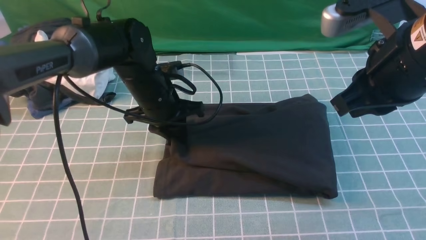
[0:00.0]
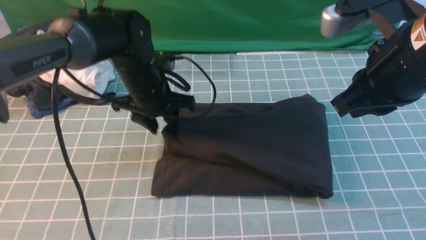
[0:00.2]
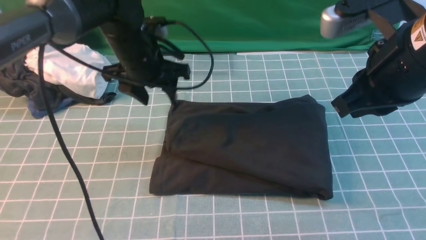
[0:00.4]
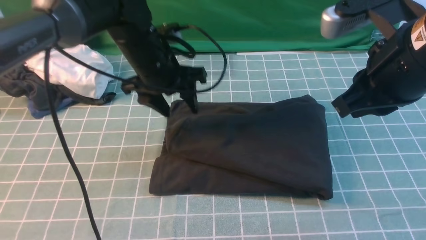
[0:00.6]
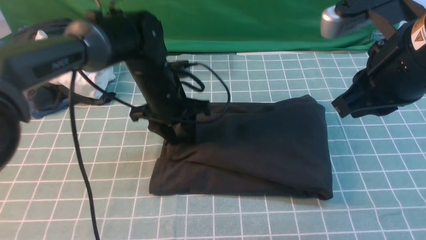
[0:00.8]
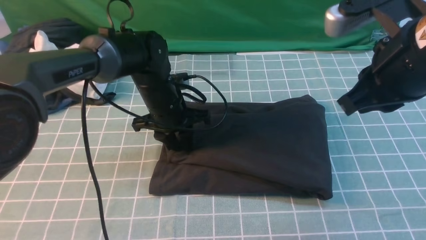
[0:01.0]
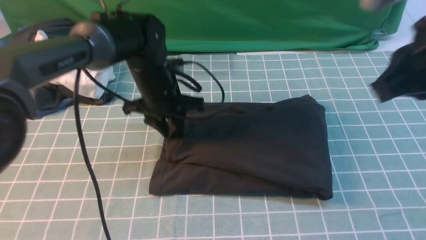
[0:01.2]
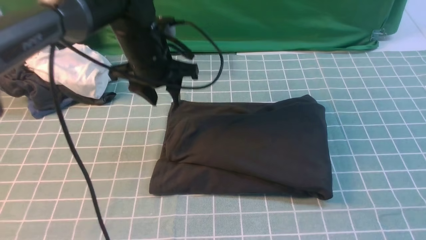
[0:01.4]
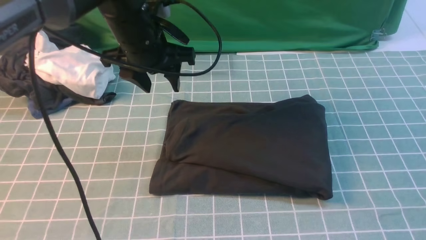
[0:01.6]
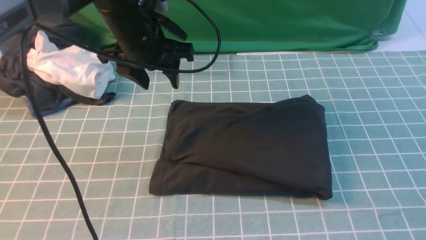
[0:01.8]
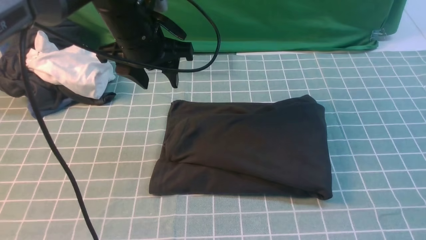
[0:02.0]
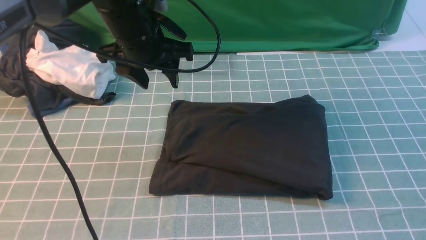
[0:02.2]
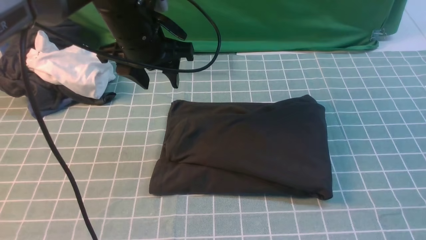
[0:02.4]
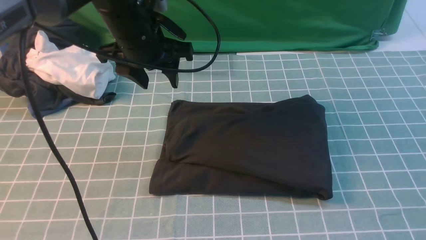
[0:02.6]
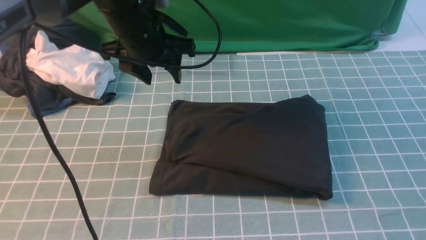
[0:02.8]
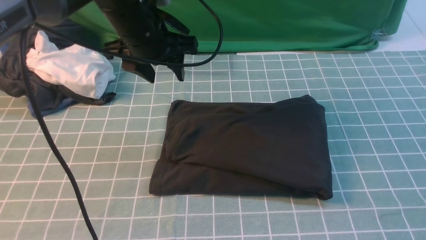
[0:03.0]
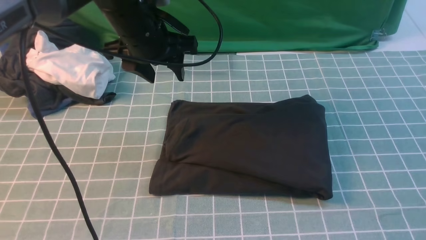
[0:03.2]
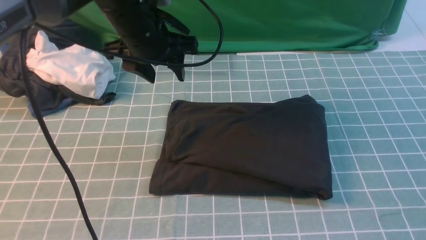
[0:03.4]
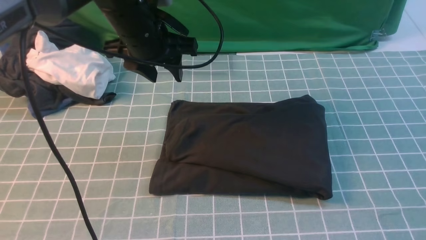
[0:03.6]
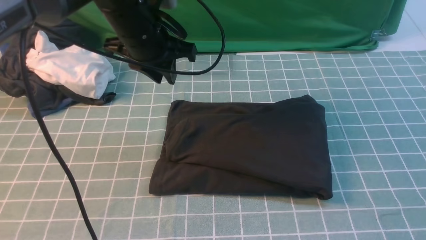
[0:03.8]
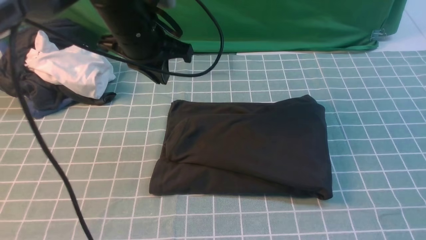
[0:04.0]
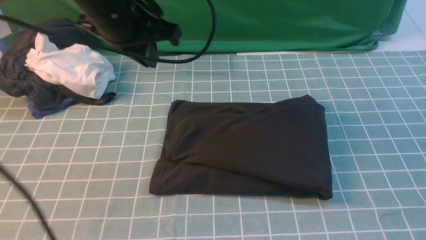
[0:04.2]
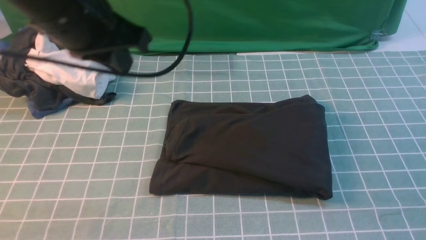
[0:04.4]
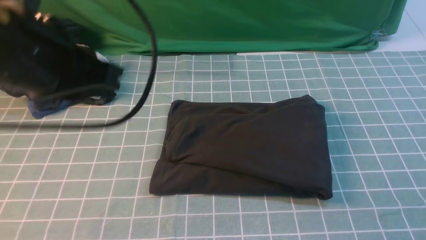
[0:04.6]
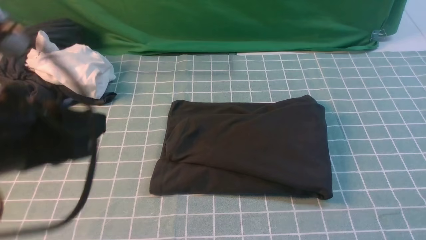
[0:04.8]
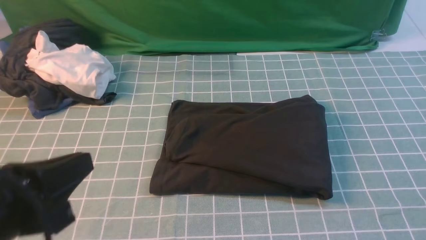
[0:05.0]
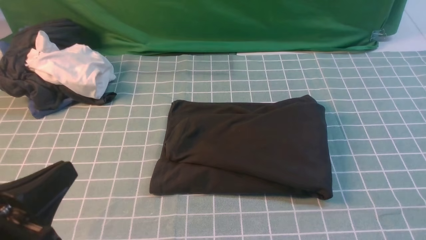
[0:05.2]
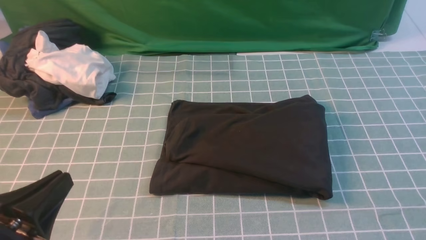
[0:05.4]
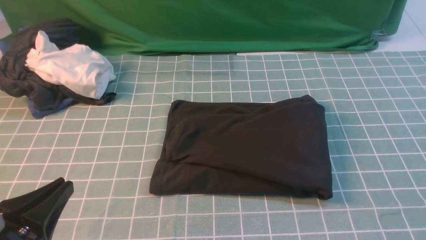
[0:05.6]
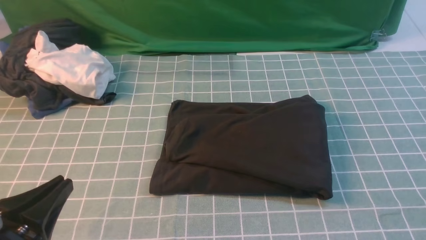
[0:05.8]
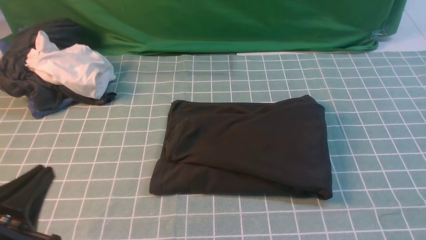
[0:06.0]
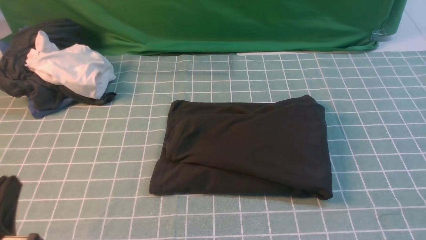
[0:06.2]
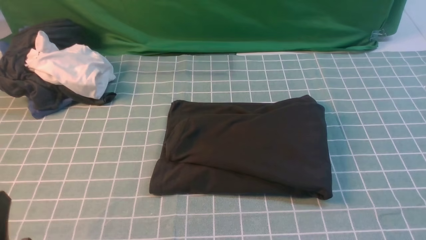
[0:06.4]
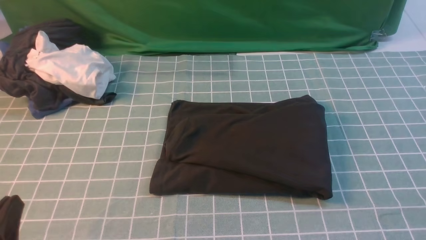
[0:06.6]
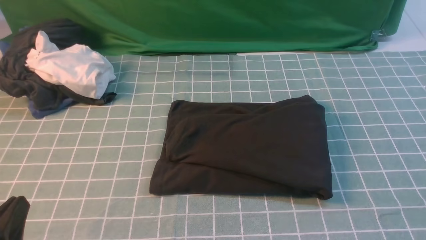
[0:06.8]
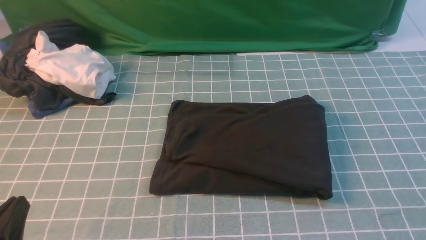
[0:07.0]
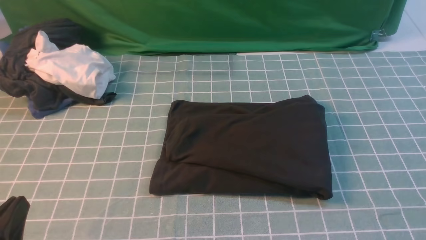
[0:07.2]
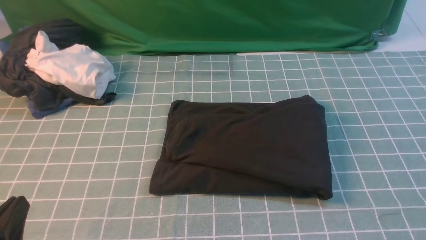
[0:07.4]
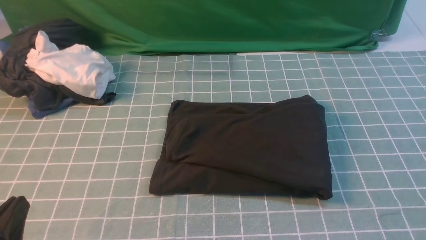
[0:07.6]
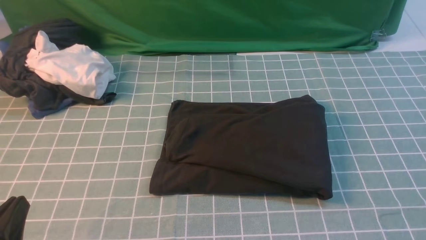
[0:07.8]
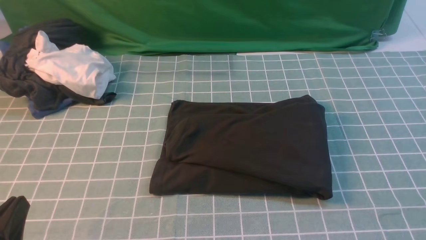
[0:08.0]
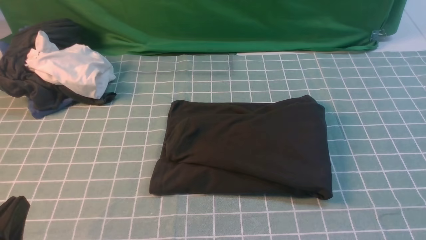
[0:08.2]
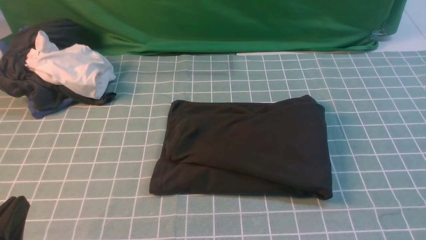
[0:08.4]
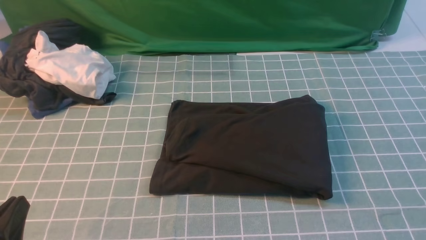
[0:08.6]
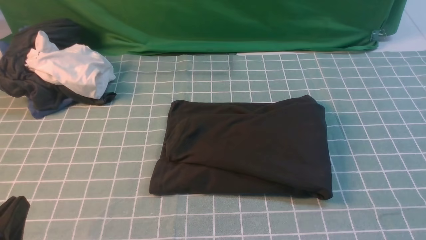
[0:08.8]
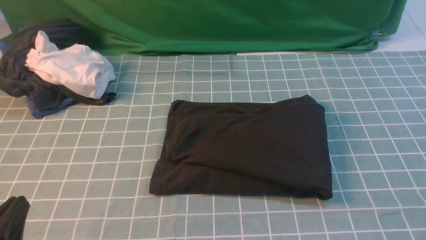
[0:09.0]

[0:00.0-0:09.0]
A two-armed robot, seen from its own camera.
0:00.0 to 0:01.6: The left gripper swings up and down, roughly 10 cm each way, with 2 reversals, and opens up; the right gripper travels backward, to the right and upward by approximately 25 cm.
0:01.6 to 0:03.0: The right gripper moves downward, approximately 20 cm.
0:03.0 to 0:04.4: The left gripper is displaced backward and upward by some 15 cm, and closes. Meanwhile the right gripper shifts some 10 cm downward.
0:04.4 to 0:06.0: The left gripper goes approximately 25 cm backward, downward and to the left.
0:06.0 to 0:07.6: There are only small adjustments of the grippers.
0:07.6 to 0:09.0: Both grippers stay put.

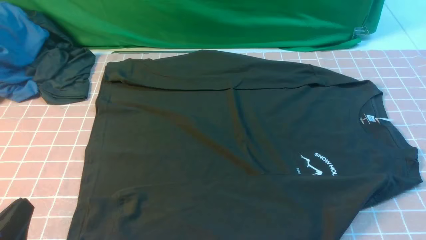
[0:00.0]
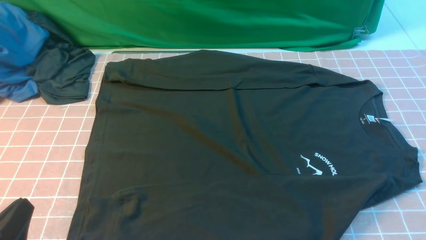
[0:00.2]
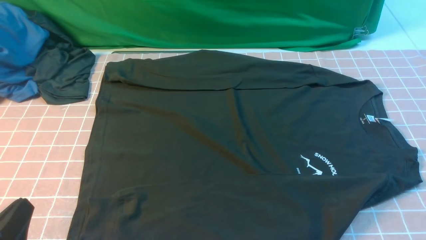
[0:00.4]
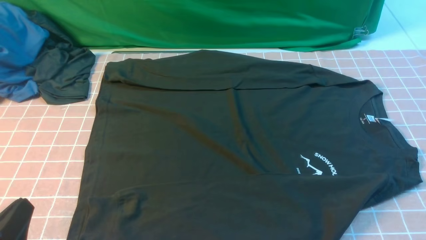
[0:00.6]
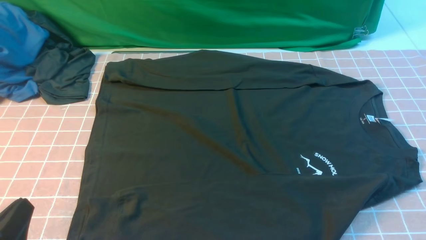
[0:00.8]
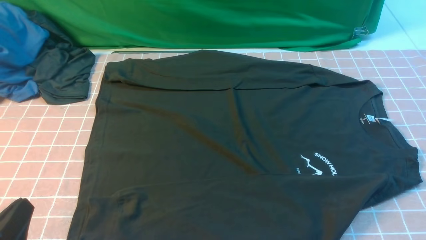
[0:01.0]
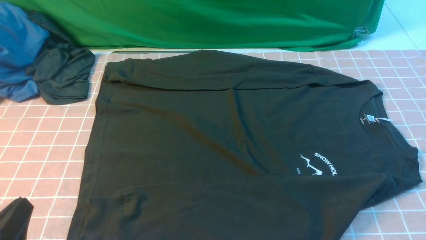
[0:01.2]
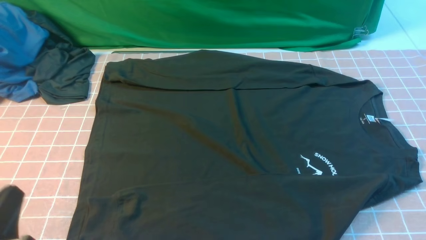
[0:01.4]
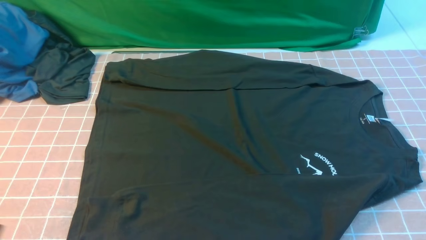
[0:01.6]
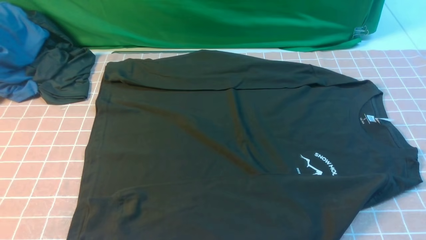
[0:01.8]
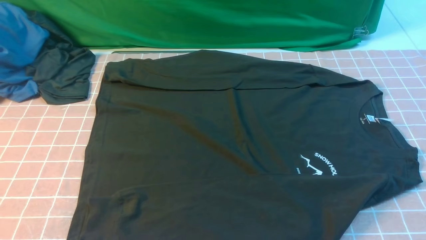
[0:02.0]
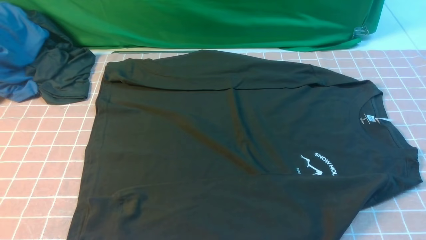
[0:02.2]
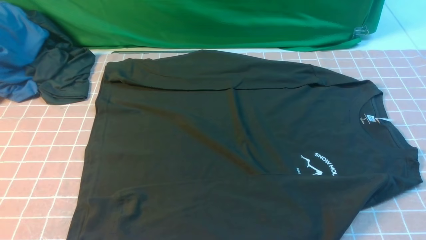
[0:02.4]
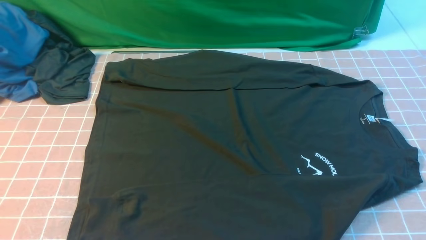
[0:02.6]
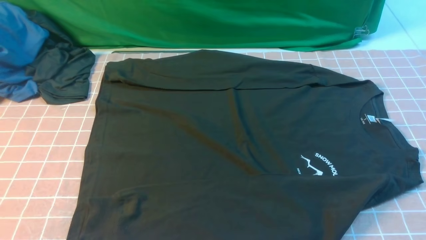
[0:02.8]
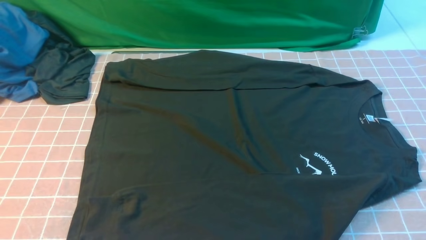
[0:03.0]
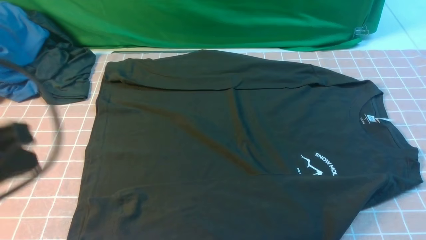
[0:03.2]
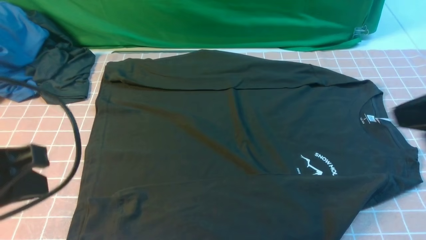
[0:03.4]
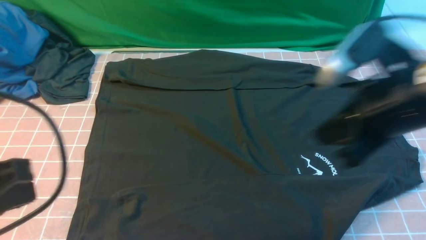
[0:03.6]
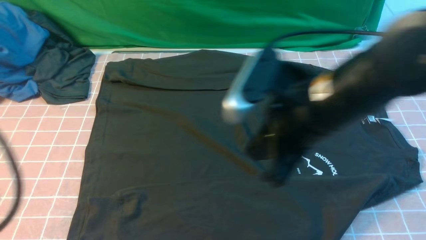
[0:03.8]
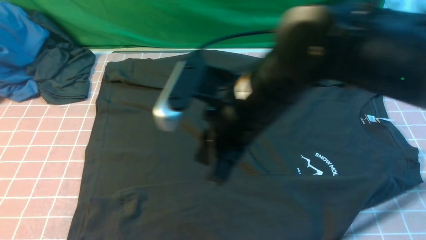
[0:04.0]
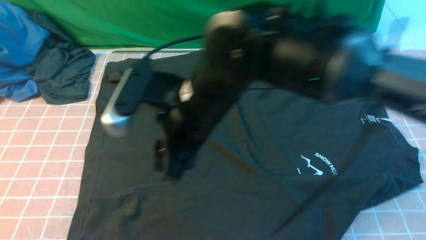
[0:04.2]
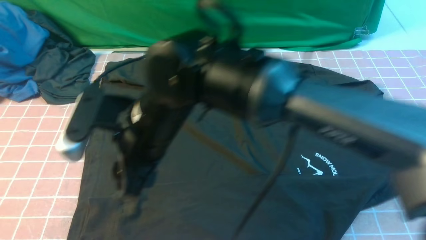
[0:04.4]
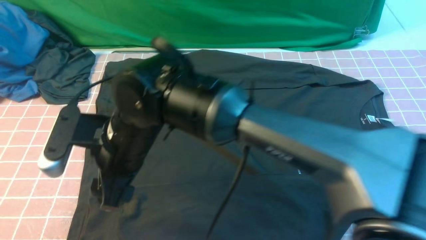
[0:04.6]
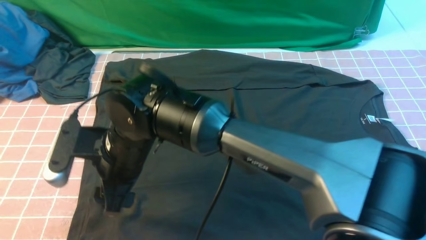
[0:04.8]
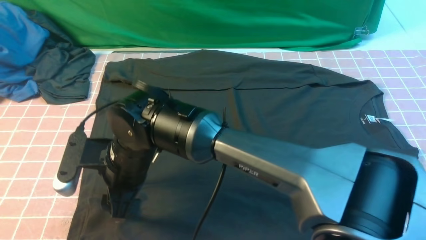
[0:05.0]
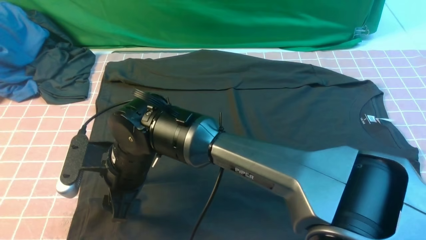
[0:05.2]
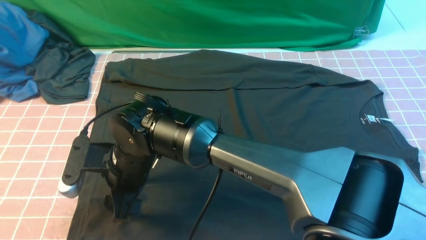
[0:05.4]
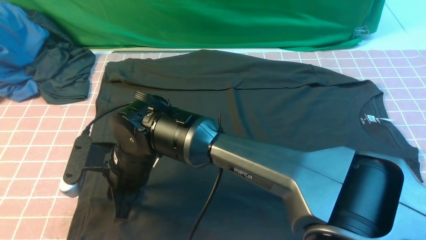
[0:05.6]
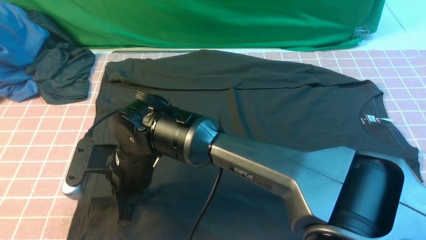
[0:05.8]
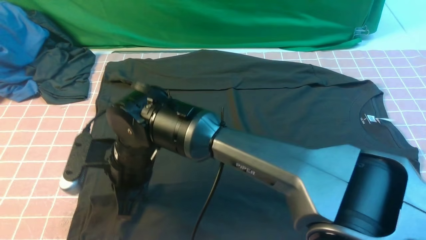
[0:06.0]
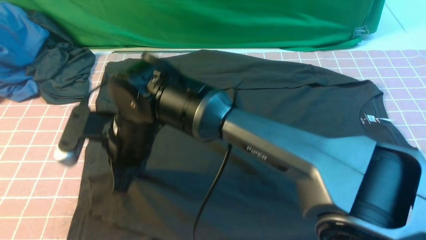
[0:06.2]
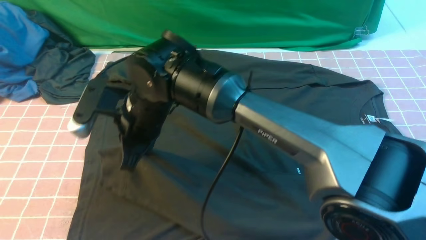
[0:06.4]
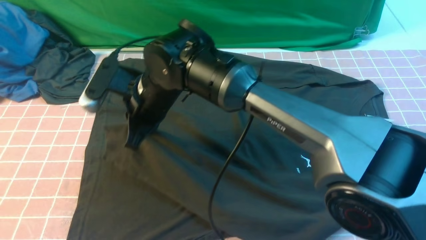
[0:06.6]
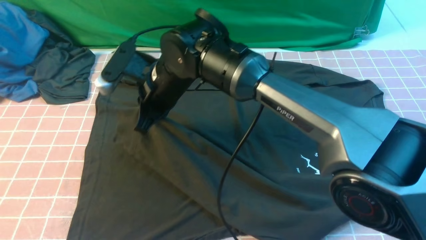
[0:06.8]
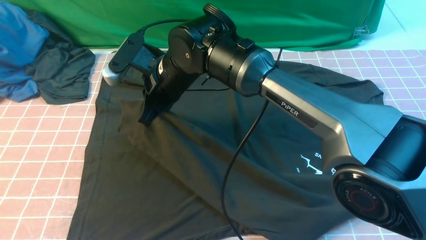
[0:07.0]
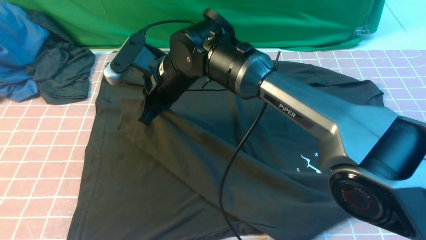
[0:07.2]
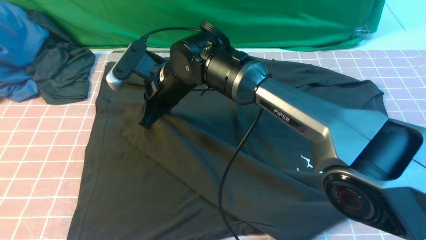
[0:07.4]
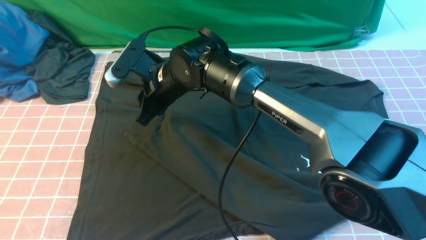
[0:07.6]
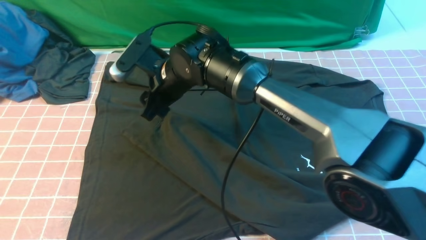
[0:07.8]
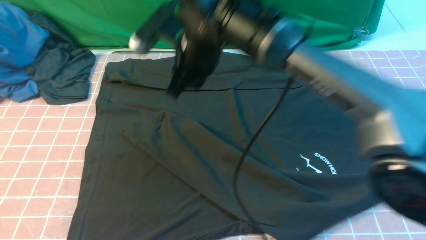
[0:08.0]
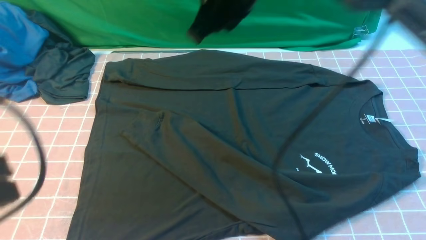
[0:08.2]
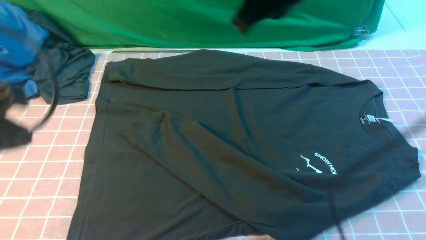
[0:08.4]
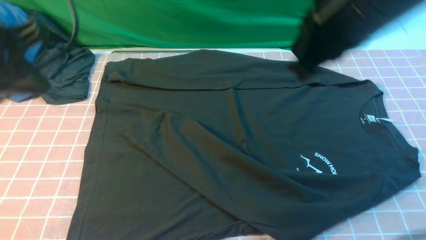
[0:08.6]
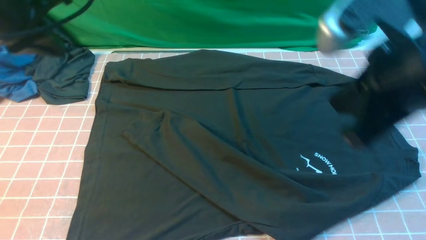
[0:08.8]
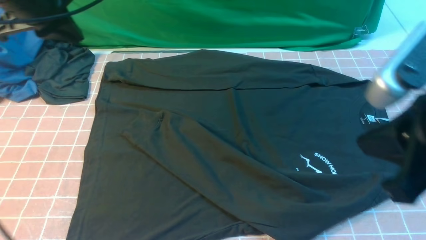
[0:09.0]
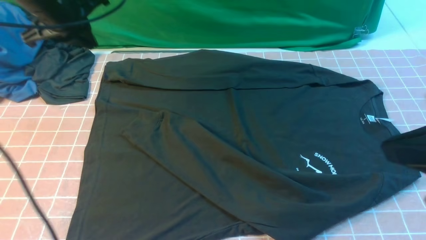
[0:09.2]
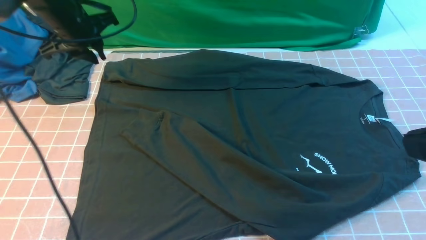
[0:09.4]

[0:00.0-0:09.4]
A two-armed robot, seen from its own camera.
Step, 0:00.0 to 0:06.2: Use your right arm to clamp the cuff closest to him.
Step, 0:06.4 to 0:07.8: use the right arm to drag and place the cuff at thecentered position on the left edge of the fabric.
0:01.6 to 0:03.2: The left gripper moves upward and forward, approximately 15 cm.
0:03.2 to 0:04.8: The right gripper goes roughly 40 cm to the left and downward, and opens. Meanwhile the left gripper goes about 10 cm backward.
0:04.8 to 0:06.2: The right gripper closes its fingers.
0:06.2 to 0:07.8: The right gripper travels forward and to the right by about 10 cm, and opens.
0:07.8 to 0:09.4: The left gripper heads forward, covering roughly 40 cm, and opens up; the right gripper is displaced backward, to the right and upward by roughly 40 cm, and closes up.
